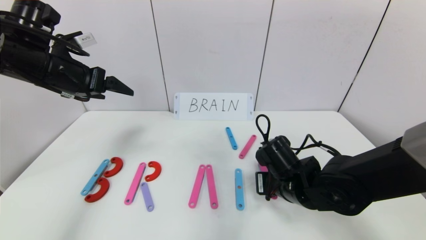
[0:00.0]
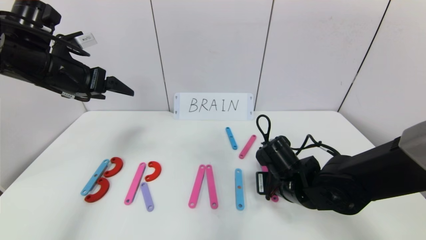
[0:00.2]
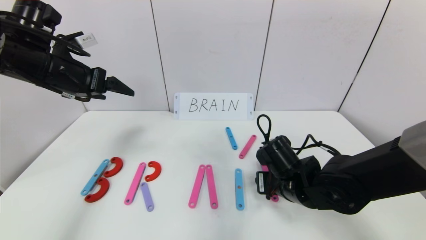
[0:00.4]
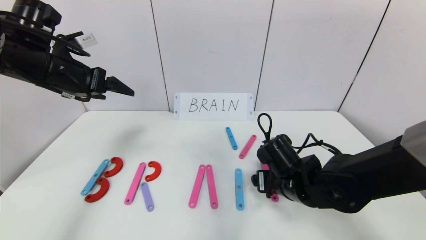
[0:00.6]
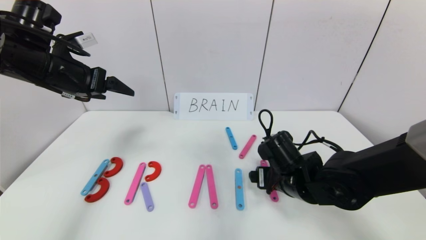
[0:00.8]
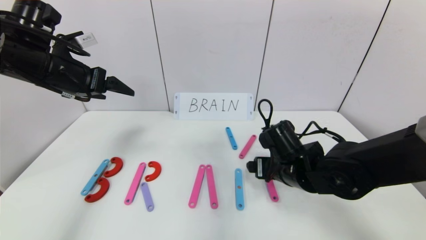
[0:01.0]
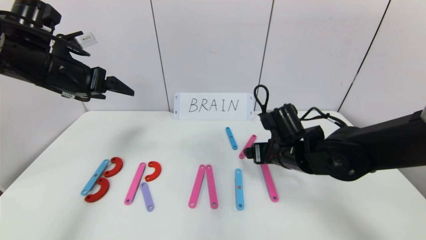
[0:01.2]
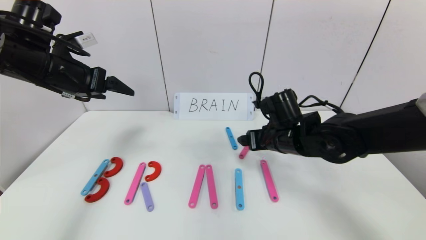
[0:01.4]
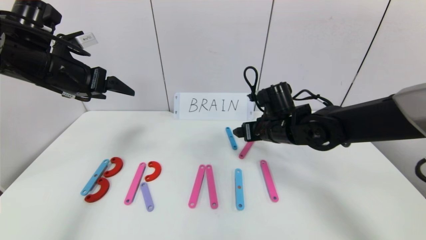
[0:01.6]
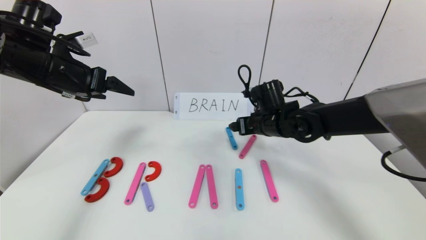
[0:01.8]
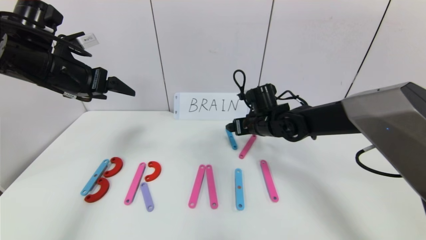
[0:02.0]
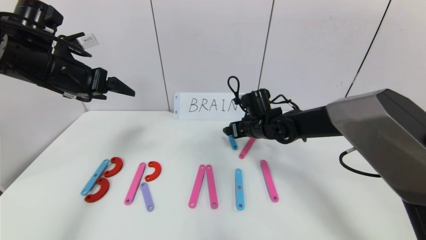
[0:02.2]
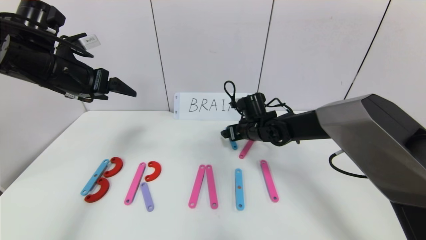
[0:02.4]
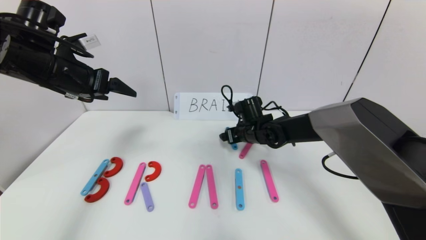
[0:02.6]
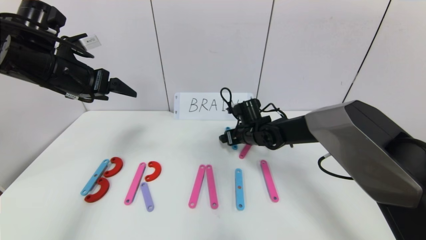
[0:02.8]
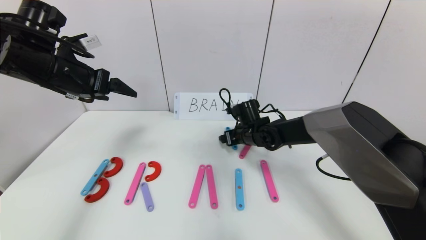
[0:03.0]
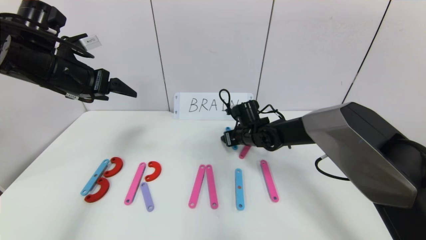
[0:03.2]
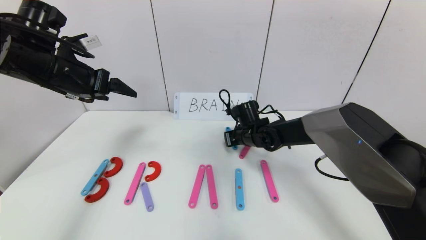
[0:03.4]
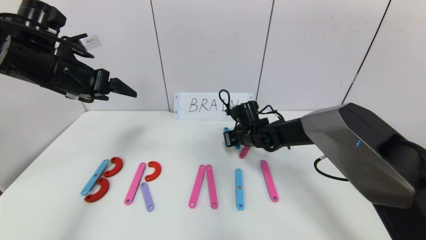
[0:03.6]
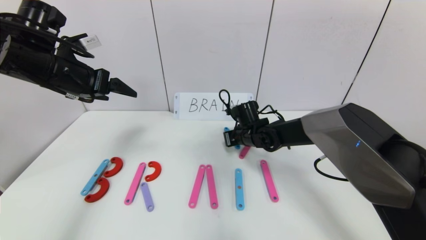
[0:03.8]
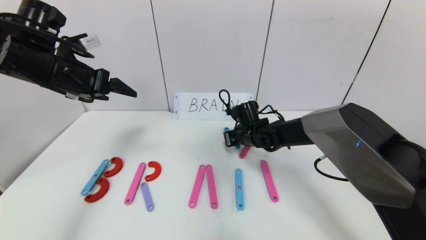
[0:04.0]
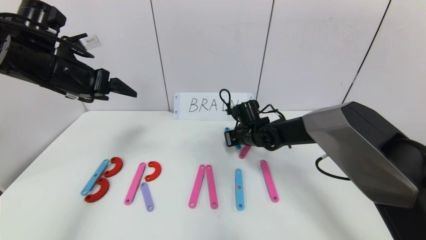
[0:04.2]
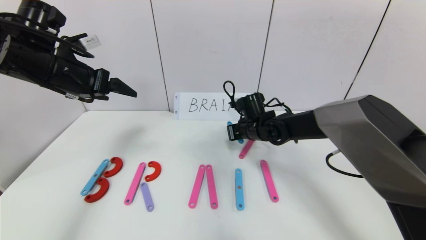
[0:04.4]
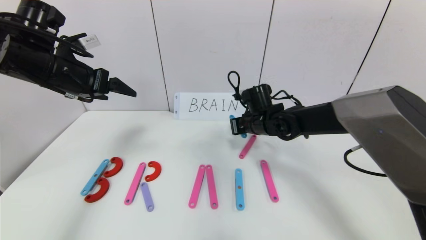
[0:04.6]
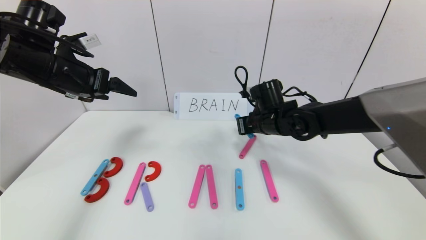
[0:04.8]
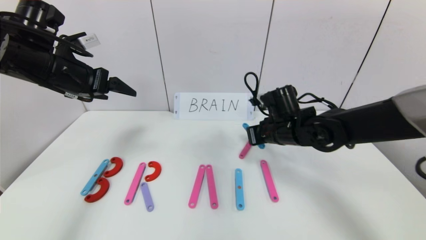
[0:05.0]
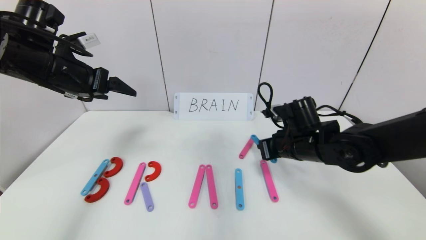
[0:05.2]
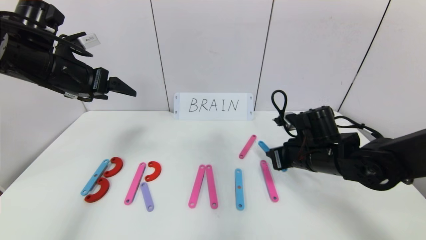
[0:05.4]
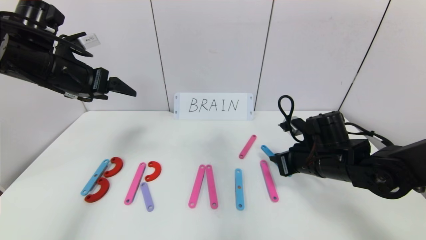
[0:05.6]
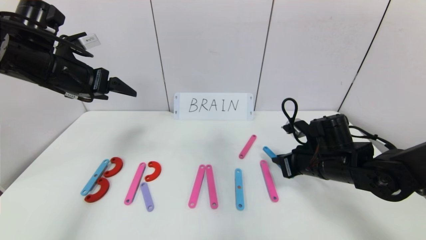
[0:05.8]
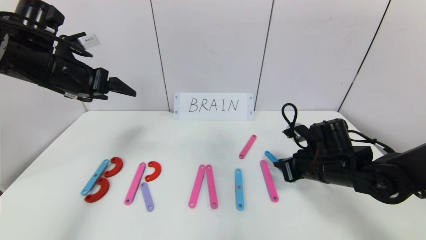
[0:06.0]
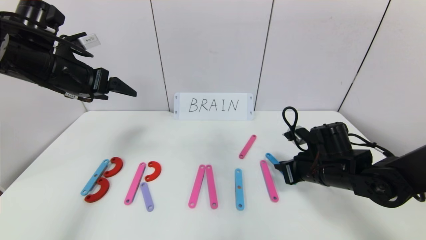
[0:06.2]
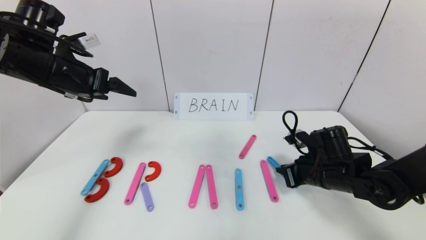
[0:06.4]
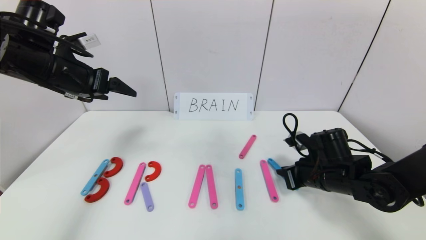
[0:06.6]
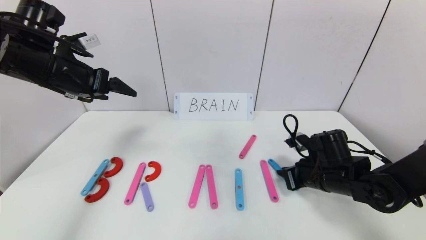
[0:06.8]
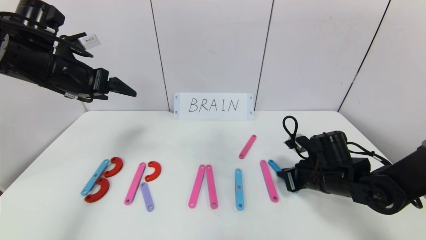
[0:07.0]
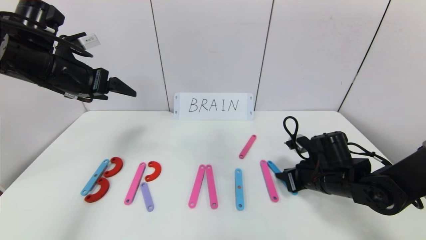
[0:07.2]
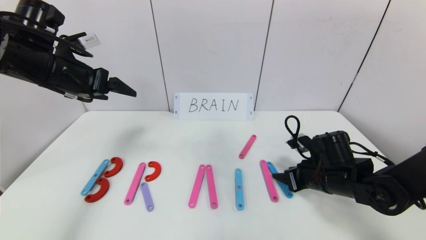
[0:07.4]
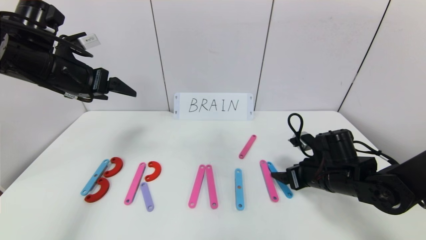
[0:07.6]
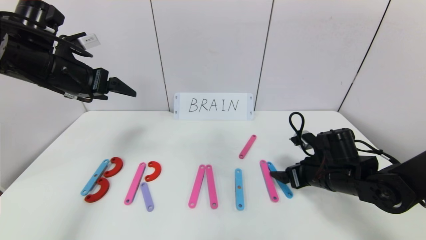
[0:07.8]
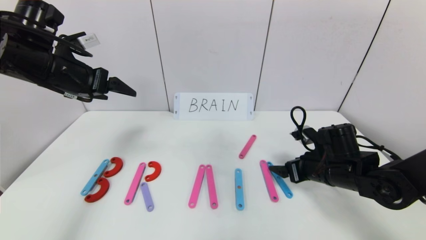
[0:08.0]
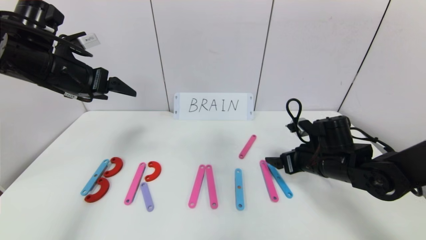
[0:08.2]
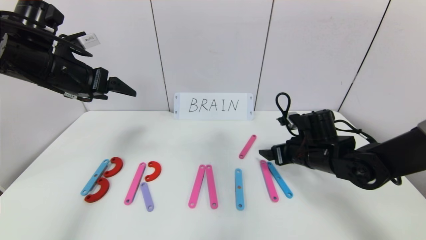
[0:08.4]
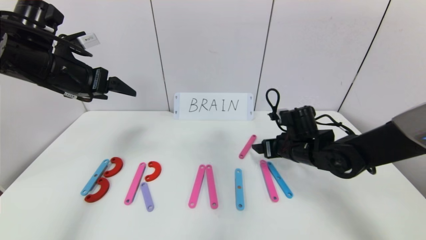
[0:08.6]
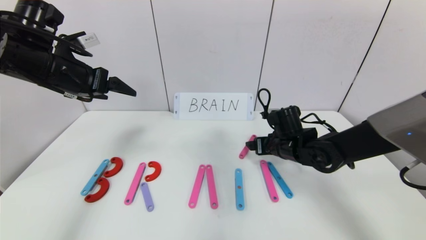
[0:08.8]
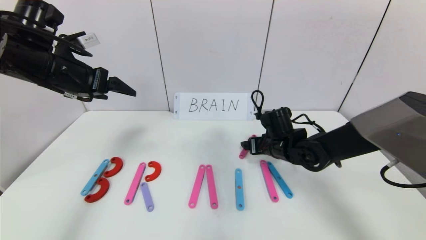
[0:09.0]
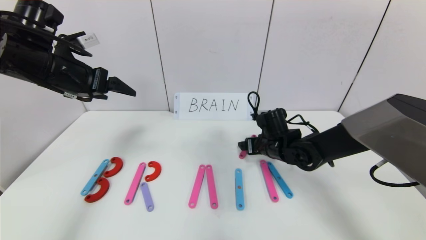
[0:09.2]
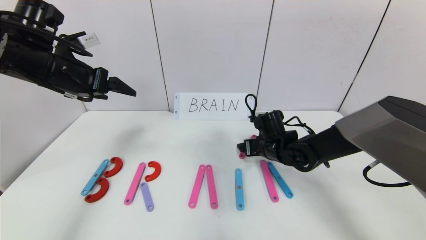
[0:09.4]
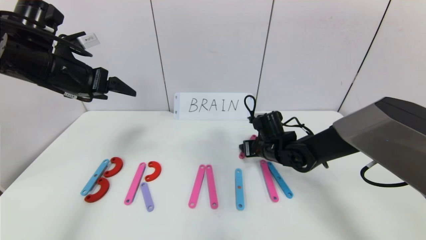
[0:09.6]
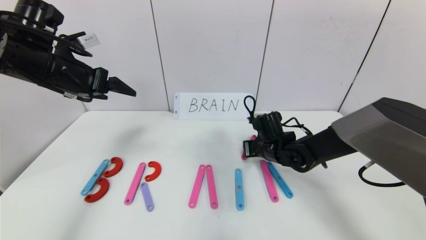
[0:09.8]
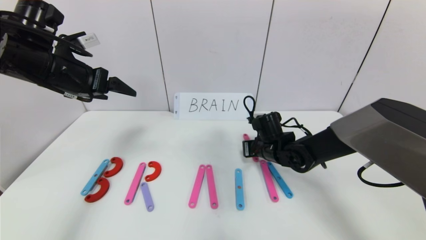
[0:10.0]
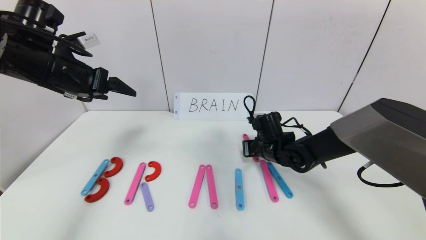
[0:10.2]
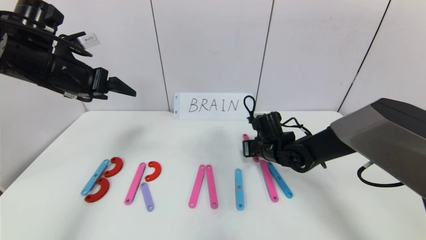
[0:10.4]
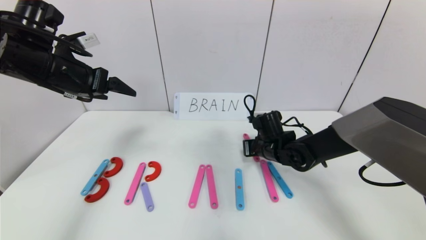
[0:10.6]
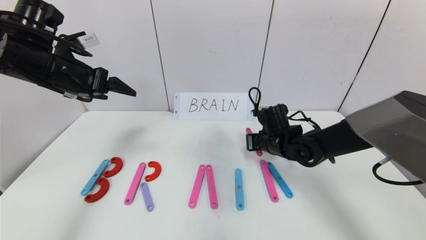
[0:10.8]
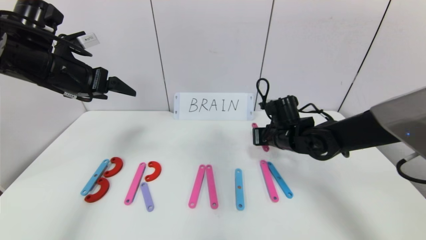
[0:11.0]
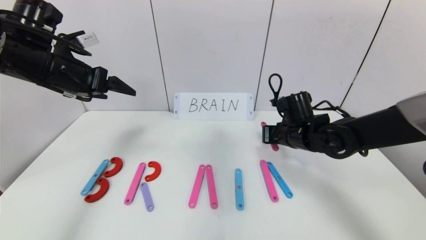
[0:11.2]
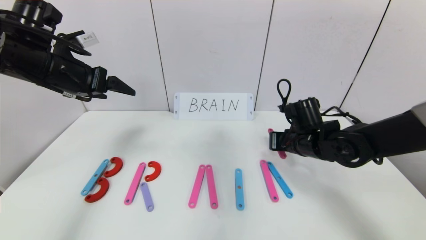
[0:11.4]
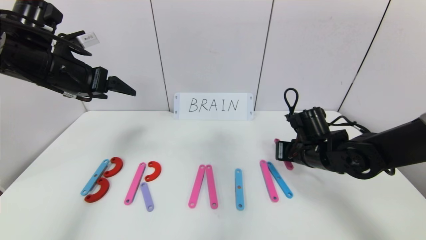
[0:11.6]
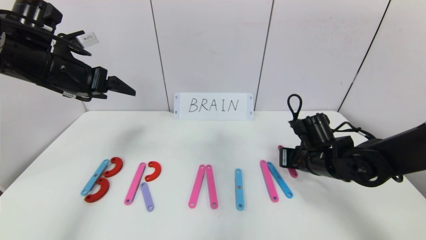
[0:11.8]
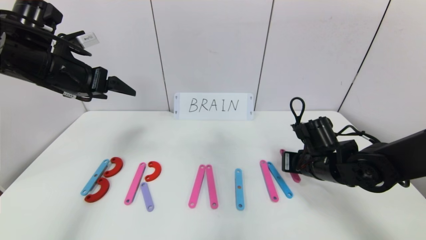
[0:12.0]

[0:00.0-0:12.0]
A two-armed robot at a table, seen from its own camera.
Task of the whole recording: rearrange the word baai as brain.
0.0 to 1.6 s: The right gripper shifts about 10 cm forward and upward, and opens its fingers.
1.6 to 3.0 s: The right gripper goes roughly 10 cm downward and forward.
3.0 to 4.4 s: The right gripper closes its fingers.
4.4 to 6.0 s: The right gripper travels backward and to the right by some 20 cm.
6.0 to 7.6 s: The right gripper opens up.
7.6 to 9.0 s: The right gripper heads to the left and forward, covering some 10 cm.
9.0 to 10.4 s: The right gripper closes.
10.4 to 12.0 s: The right gripper heads backward and to the right, covering approximately 10 cm.

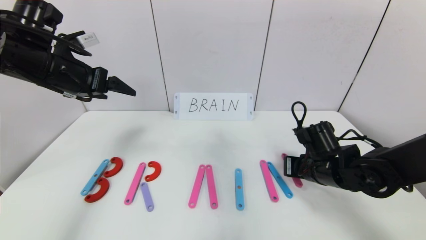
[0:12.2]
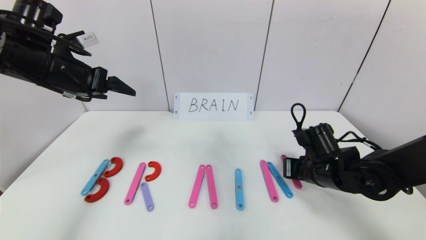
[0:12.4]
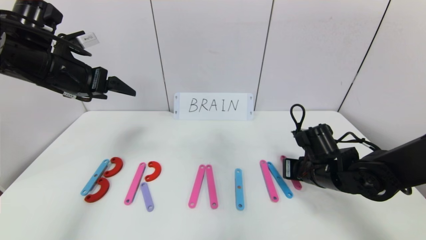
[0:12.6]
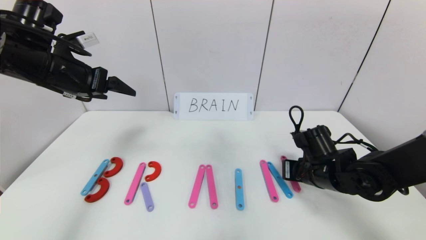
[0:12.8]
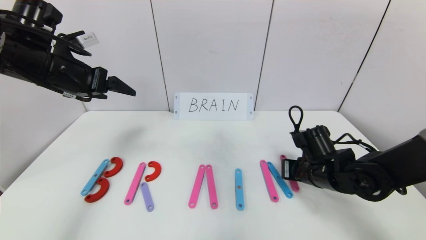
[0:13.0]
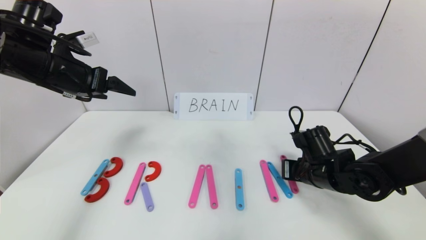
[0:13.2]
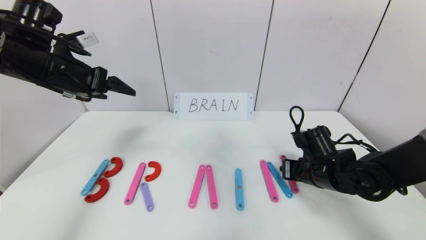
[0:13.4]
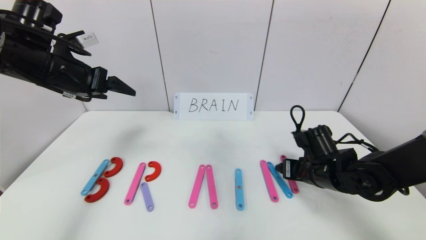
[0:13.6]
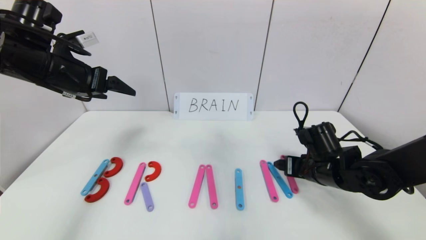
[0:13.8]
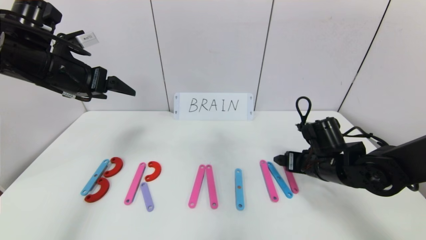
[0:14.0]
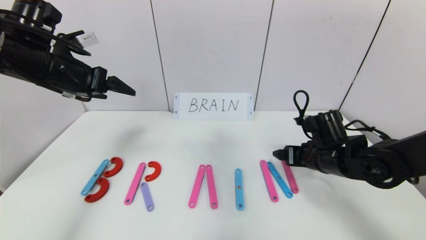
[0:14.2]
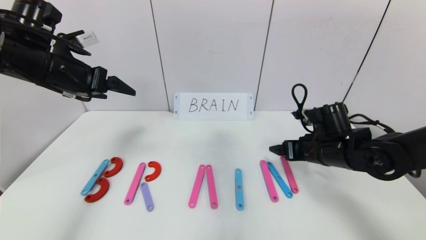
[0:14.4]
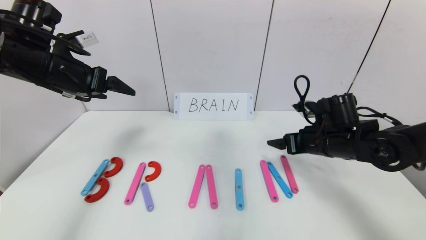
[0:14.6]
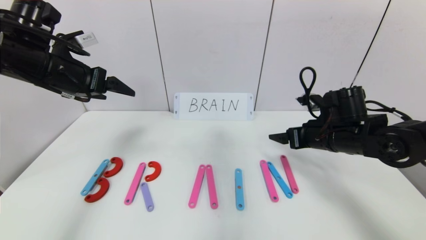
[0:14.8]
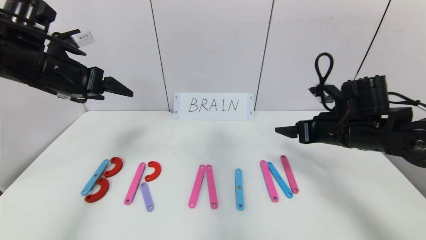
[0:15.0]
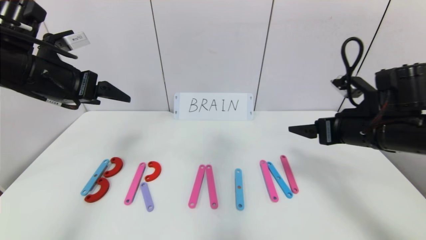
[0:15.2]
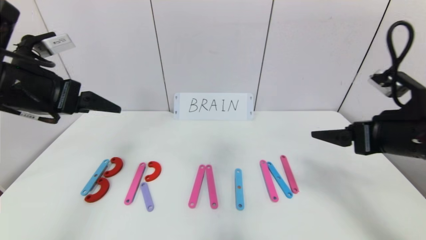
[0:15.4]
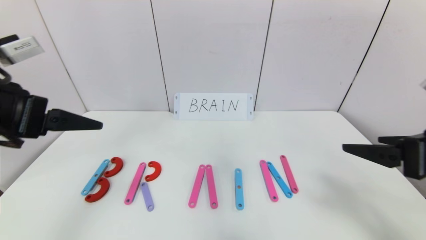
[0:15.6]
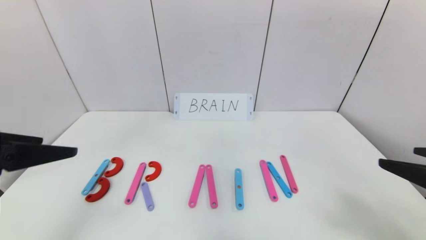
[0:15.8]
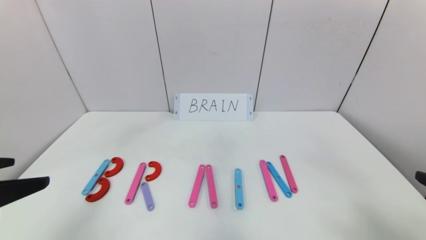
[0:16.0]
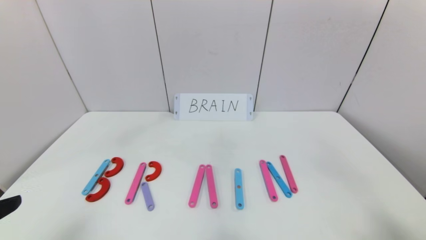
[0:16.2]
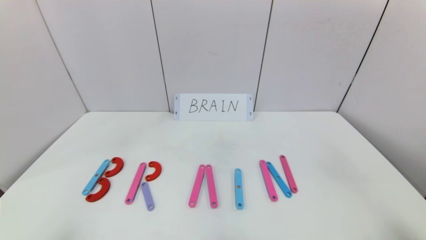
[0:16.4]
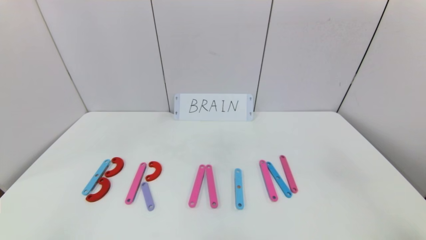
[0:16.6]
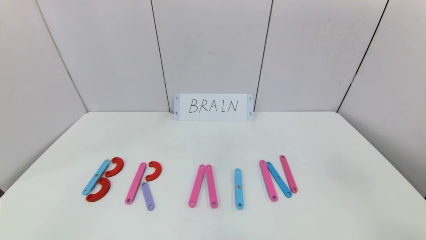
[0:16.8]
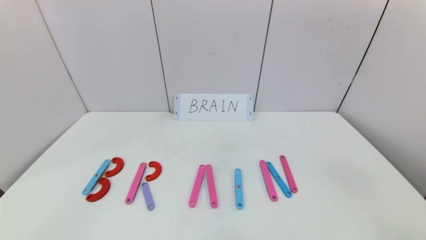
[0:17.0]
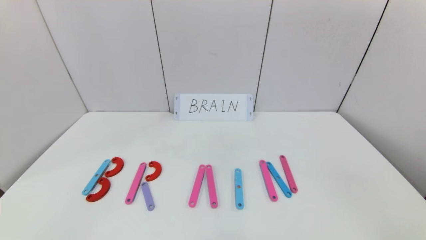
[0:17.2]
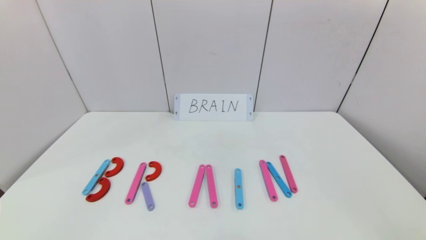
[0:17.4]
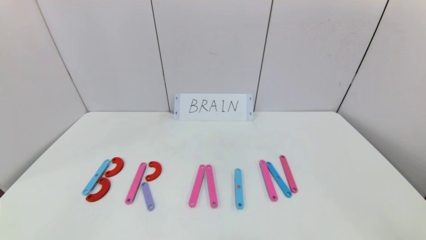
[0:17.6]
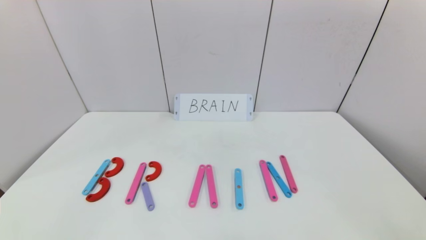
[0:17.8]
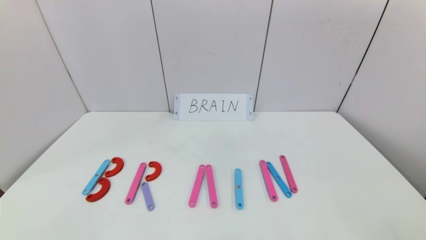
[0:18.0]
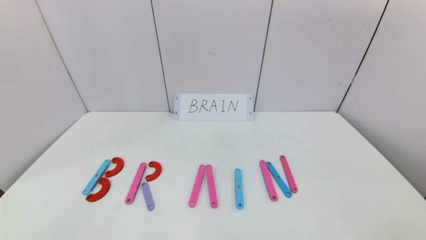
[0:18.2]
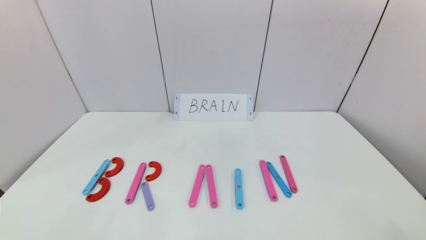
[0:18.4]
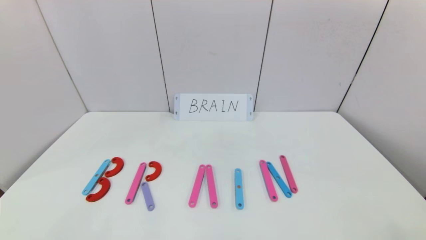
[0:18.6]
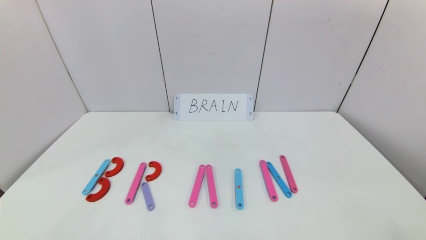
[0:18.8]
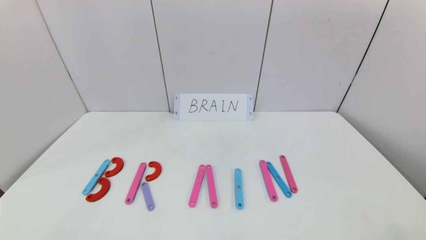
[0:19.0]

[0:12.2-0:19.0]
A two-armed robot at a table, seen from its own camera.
Task of the whole recording: rearrange the word baai as brain.
Step, 12.2 to 14.6 s: Place the character N after character I.
12.2 to 13.6 s: The right gripper opens up.
13.6 to 15.0 s: The right gripper shifts some 10 cm upward.
15.0 to 16.2 s: The two grippers go some 25 cm backward.
